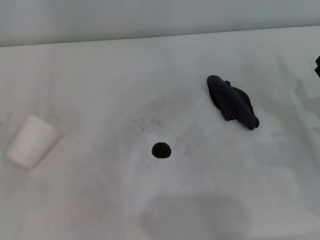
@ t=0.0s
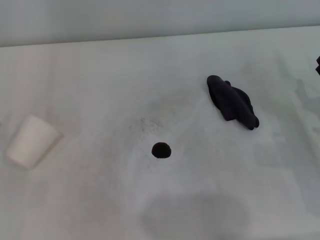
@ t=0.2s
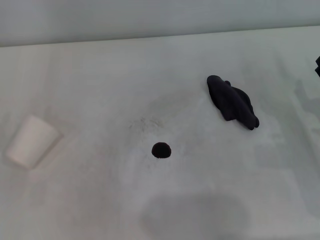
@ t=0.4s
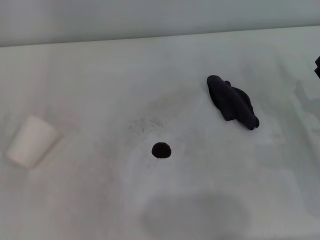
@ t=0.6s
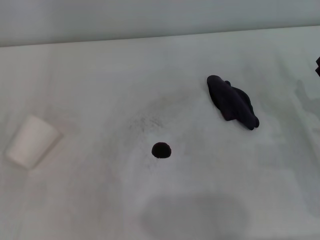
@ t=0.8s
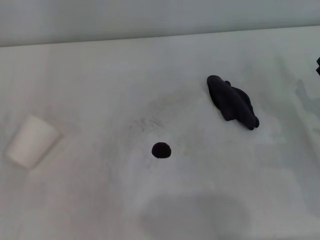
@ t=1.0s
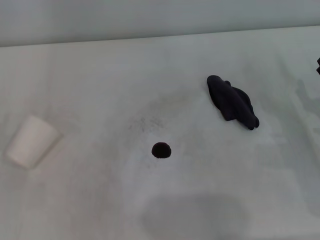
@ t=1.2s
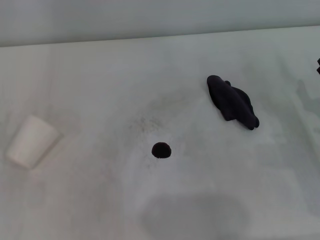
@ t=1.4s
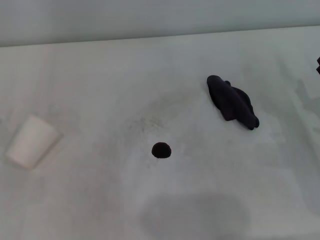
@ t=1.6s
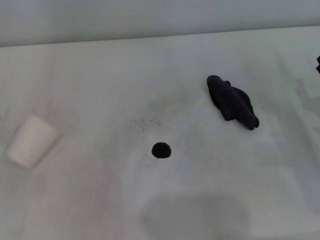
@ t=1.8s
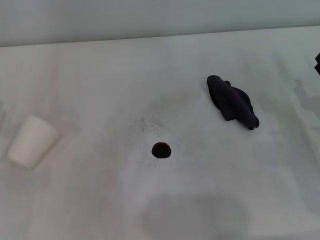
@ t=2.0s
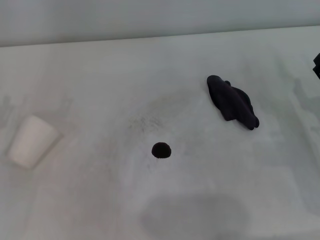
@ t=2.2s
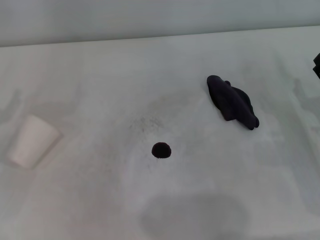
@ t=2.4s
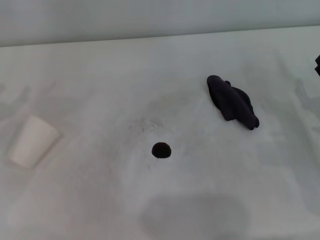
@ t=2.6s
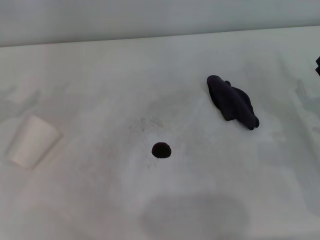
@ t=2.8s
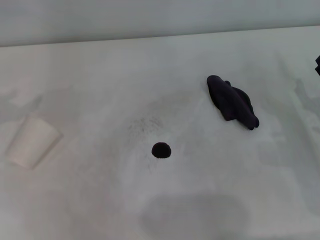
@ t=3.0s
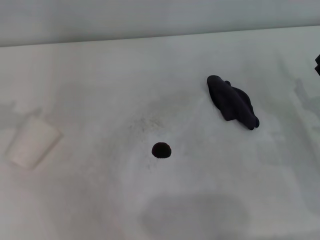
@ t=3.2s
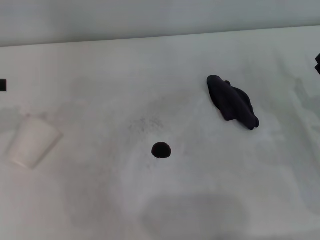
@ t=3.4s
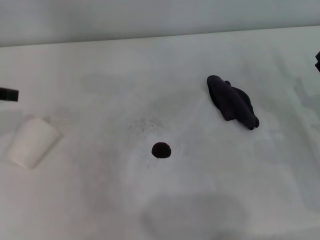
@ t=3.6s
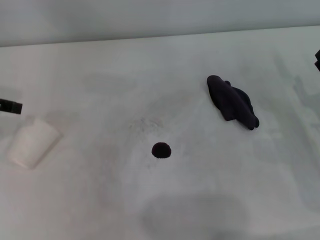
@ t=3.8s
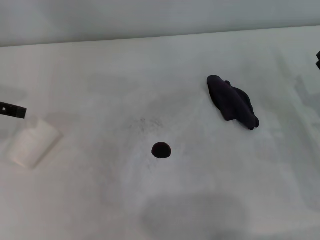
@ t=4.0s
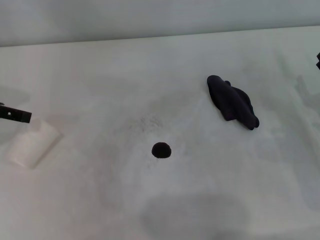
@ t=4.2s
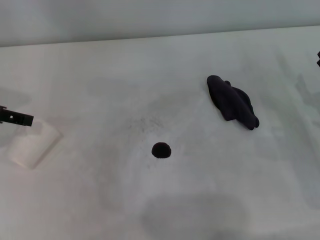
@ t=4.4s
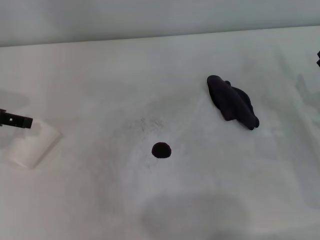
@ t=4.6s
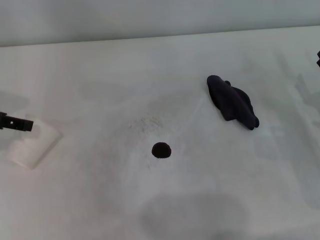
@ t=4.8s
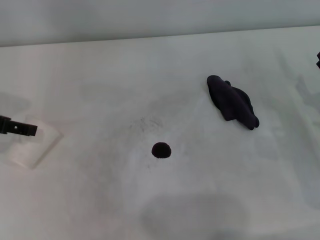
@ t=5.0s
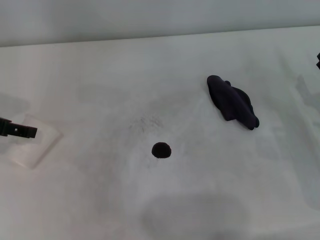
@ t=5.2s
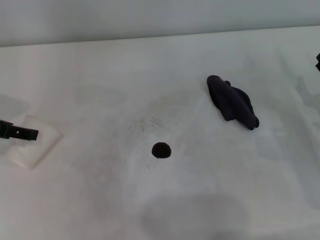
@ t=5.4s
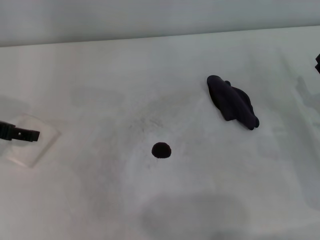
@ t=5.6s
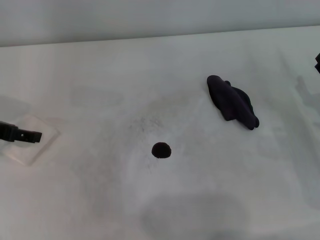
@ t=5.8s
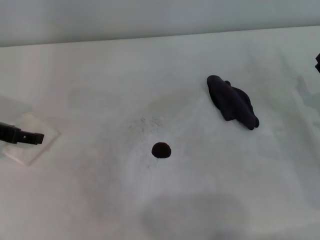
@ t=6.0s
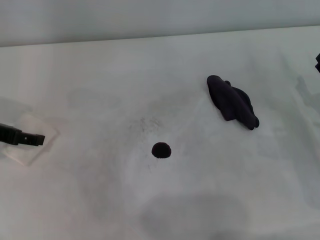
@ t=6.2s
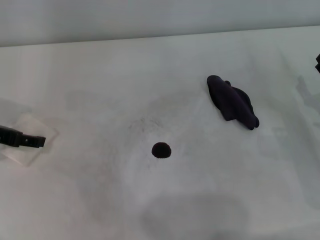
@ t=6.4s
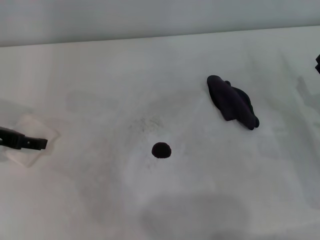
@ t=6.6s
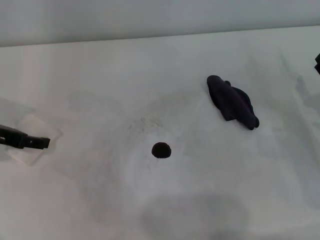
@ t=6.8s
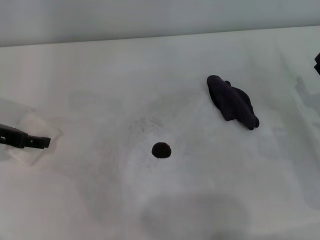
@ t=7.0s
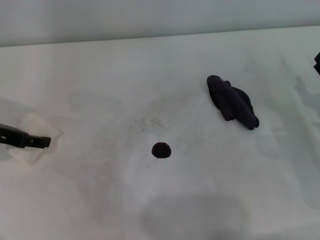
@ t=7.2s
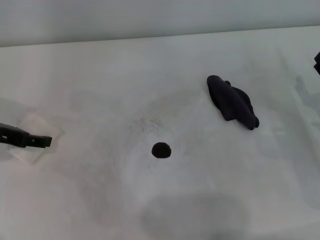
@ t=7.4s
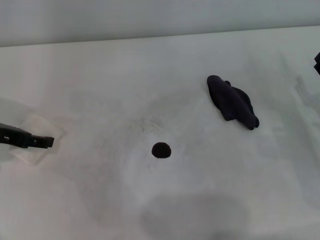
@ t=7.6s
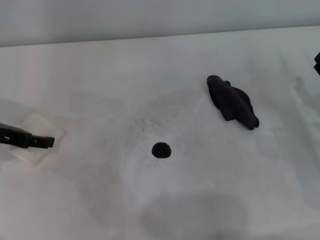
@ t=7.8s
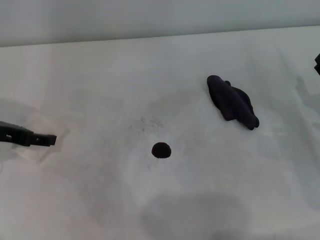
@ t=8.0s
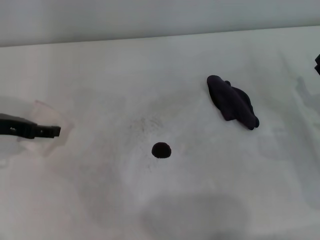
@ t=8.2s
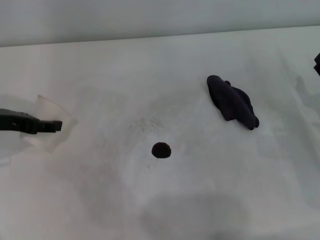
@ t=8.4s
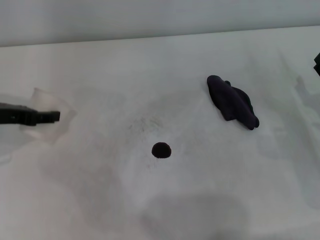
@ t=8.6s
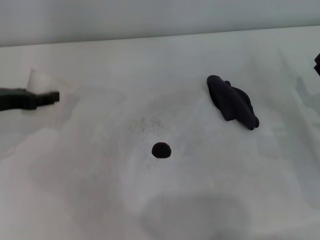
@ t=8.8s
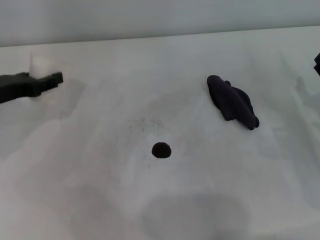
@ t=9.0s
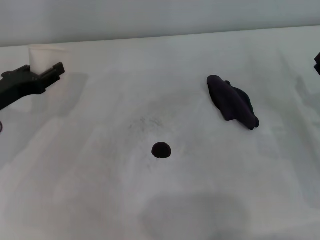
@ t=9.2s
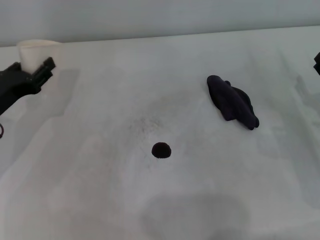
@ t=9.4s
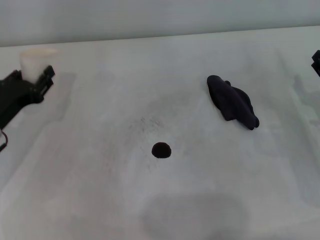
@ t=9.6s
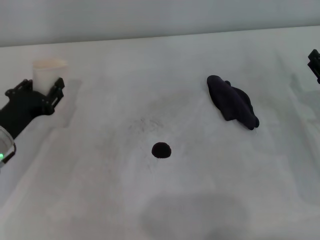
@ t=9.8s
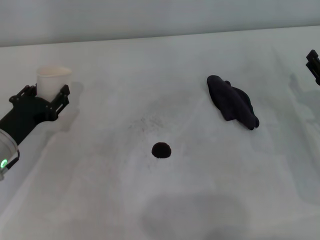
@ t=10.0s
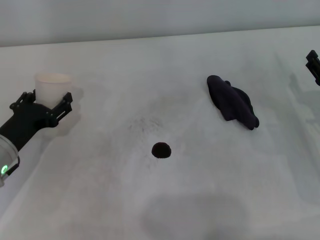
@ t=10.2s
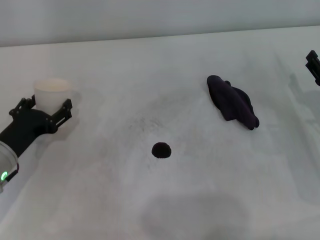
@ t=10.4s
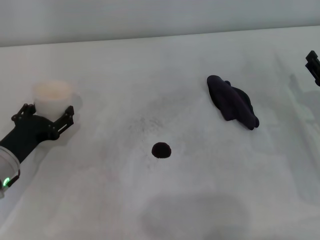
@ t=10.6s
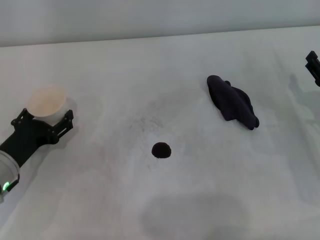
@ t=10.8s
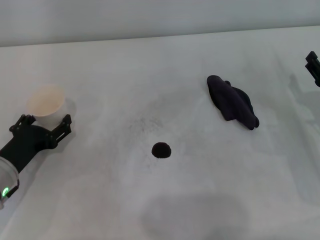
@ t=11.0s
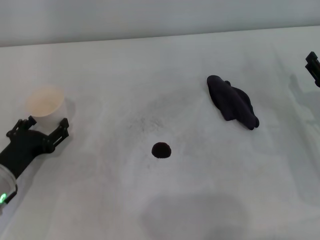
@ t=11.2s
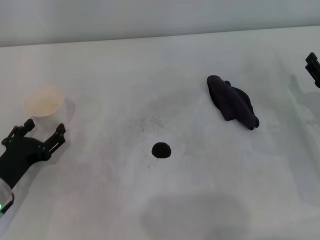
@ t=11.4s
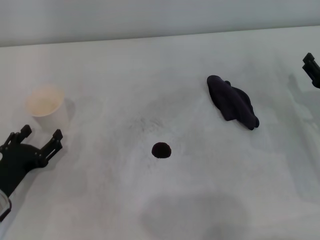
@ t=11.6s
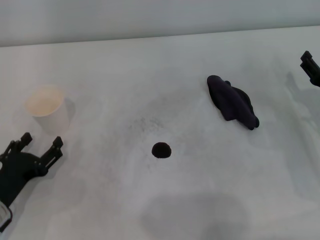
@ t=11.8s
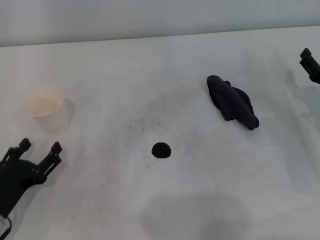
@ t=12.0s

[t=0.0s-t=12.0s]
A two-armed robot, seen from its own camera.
Step, t=6.6s to t=10.8s: Stand the paper cup upright with the left gripper.
t=0.0s to t=1.6s: The two grippers keep their place.
t=4.4s to t=6.0s: The left gripper moves downward, roughly 5 cm.
t=7.6s to t=9.0s: The left gripper closes up.
t=9.0s to t=10.4s: The left gripper goes about 10 cm downward and backward, and opens up.
t=10.4s to t=12.0s: The left gripper travels backward by about 10 cm.

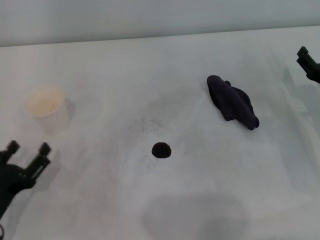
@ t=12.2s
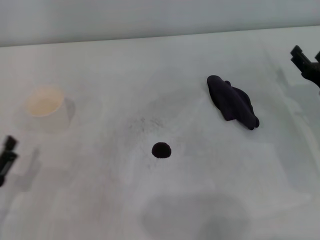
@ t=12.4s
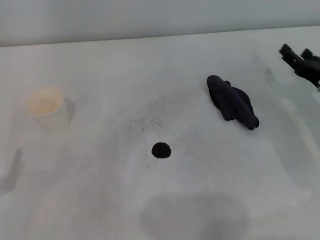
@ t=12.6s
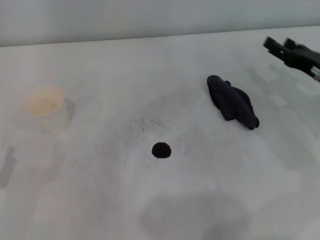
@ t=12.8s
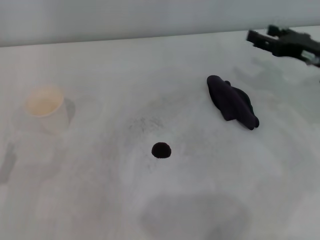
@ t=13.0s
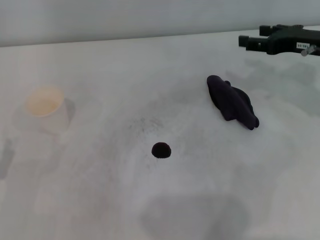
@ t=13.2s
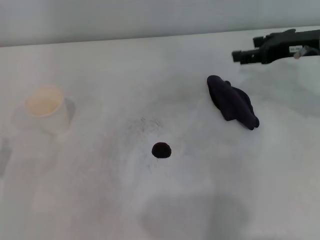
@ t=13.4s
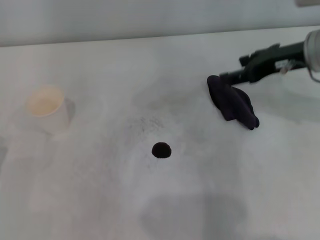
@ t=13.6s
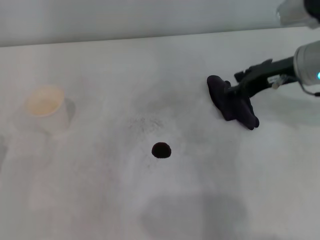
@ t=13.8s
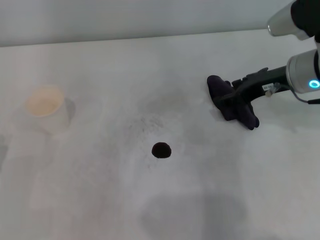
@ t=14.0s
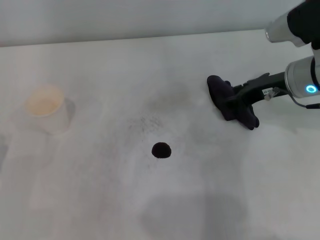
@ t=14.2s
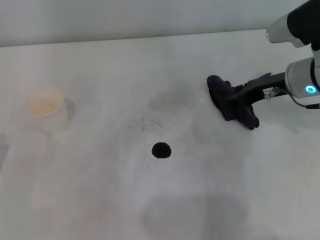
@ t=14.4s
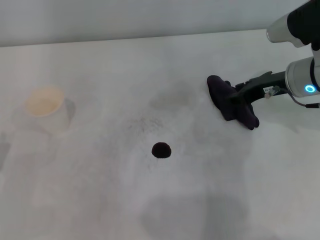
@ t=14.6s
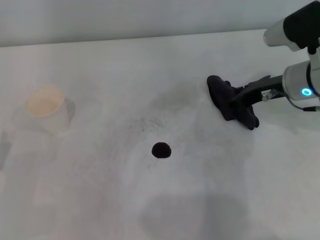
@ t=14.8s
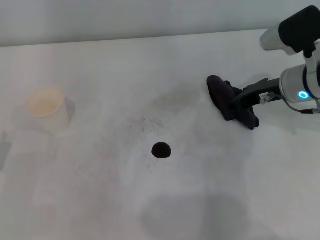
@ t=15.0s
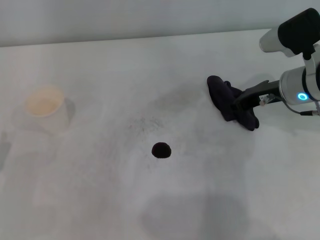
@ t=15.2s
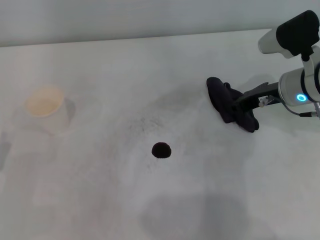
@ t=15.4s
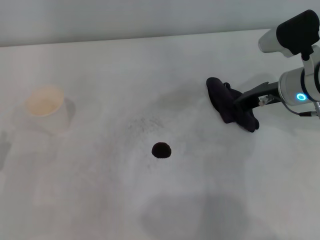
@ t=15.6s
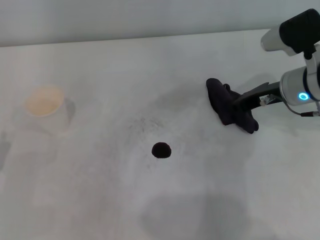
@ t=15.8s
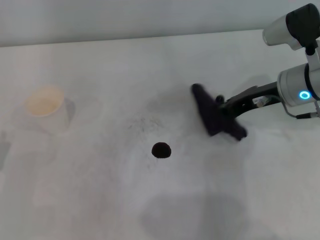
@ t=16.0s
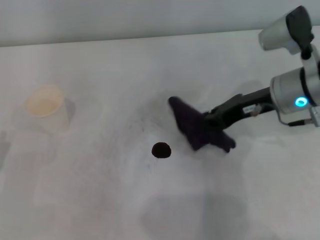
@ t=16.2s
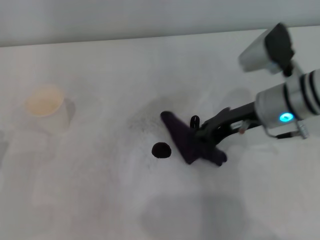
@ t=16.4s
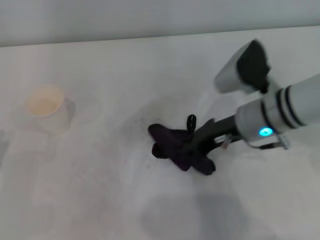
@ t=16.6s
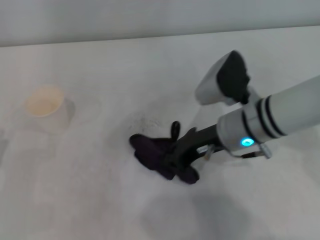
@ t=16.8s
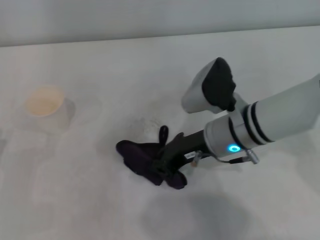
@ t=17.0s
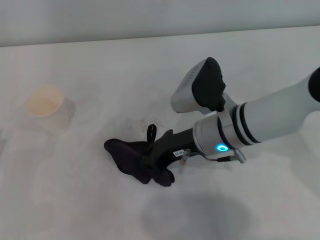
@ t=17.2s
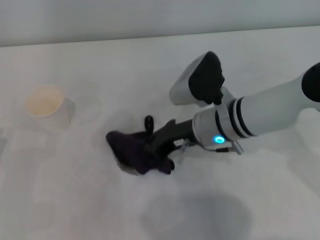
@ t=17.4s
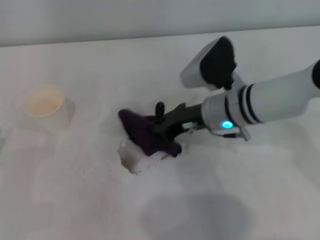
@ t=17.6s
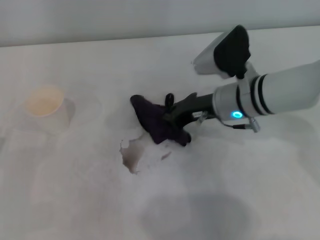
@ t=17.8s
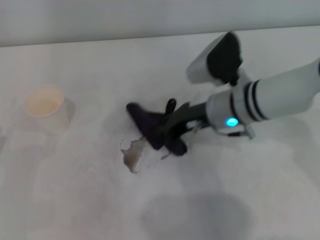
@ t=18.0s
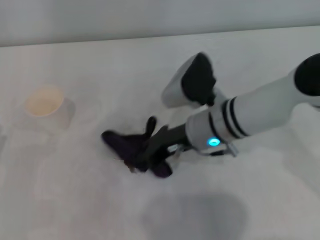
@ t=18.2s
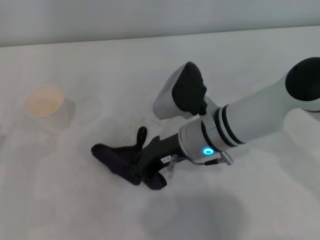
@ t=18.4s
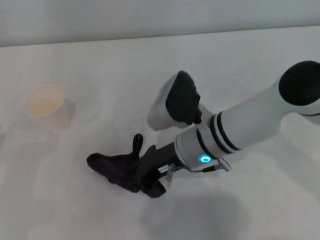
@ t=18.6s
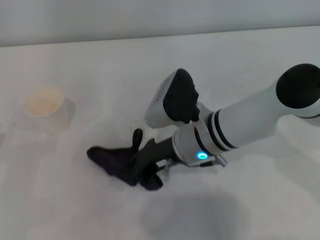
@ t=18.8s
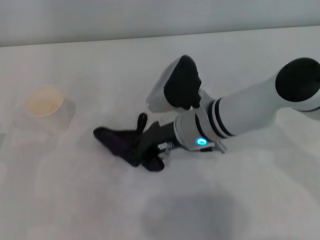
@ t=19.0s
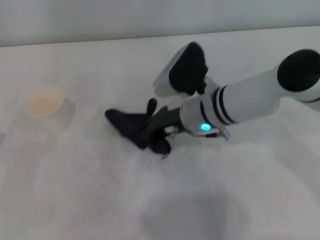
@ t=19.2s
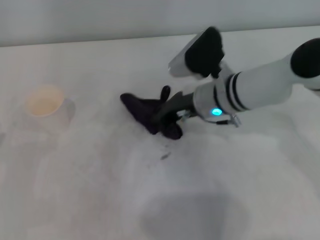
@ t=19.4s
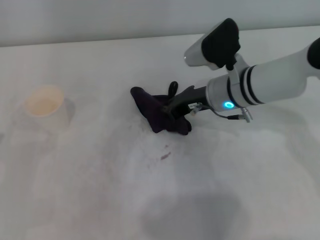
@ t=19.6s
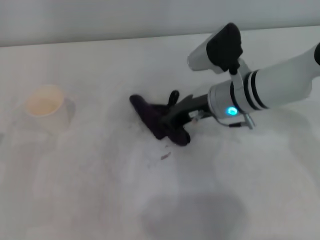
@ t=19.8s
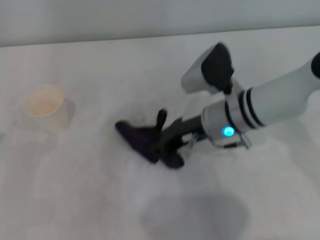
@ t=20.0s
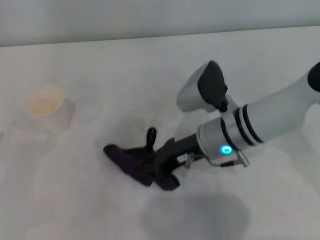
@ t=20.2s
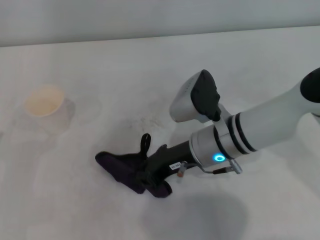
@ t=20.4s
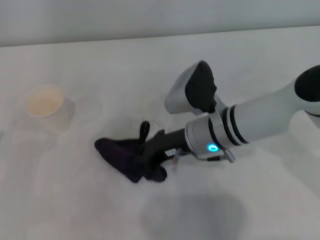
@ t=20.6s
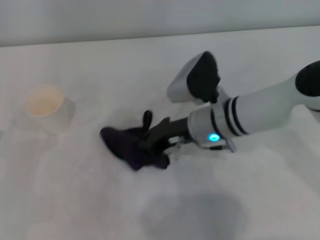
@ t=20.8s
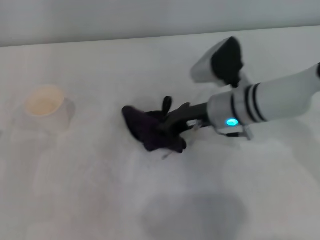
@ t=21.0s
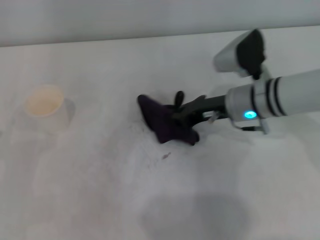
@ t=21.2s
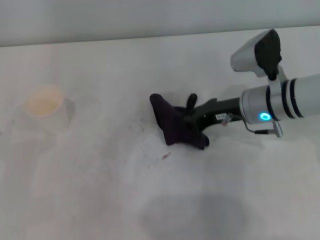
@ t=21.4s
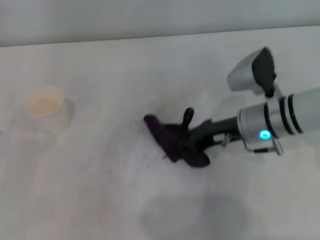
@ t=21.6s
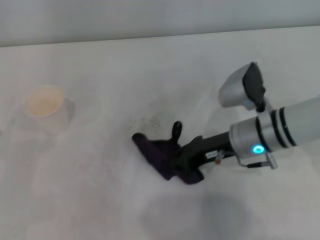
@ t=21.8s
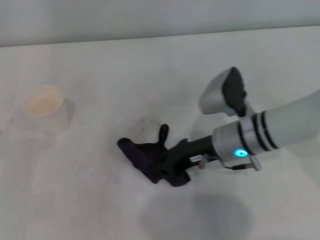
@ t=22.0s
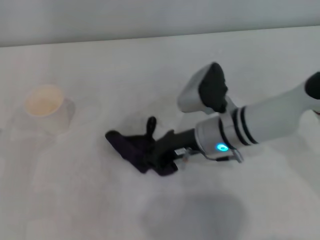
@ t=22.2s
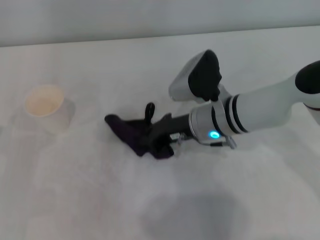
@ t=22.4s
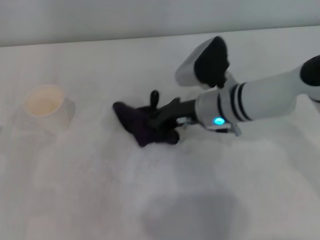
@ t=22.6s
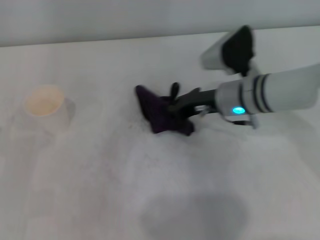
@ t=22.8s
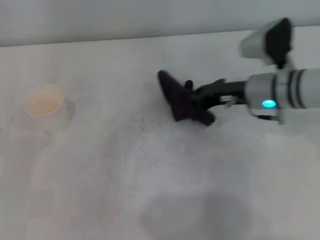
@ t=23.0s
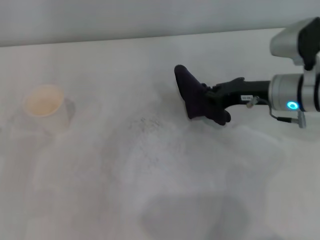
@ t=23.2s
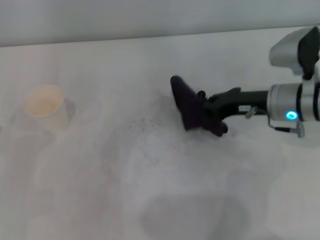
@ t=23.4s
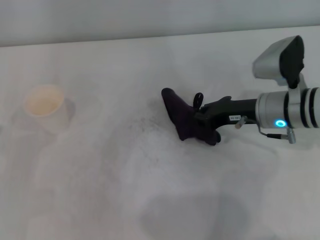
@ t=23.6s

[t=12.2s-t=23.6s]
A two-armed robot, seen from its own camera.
Step, t=12.2s to t=15.6s: Grasp the rag with the right gripper.
Step, t=16.0s to t=23.0s: Wipe the stains off the table with the right gripper.
t=12.2s to t=13.6s: The right gripper moves upward and to the left, roughly 15 cm; the left gripper moves roughly 5 cm.
t=13.6s to t=15.0s: The right gripper travels downward by some 5 cm, and closes up.
t=15.0s to t=16.4s: The right gripper ends up about 5 cm from where it was, and closes its fingers.
t=16.4s to t=17.8s: The right gripper moves to the left, roughly 5 cm.
t=20.8s to t=22.2s: The right gripper reaches about 10 cm to the right, then returns.
t=22.2s to t=23.6s: The right gripper travels to the right by some 10 cm.
